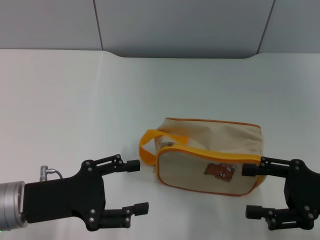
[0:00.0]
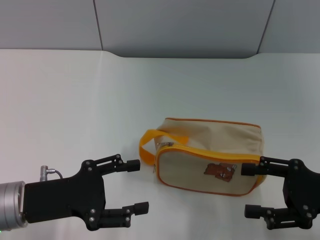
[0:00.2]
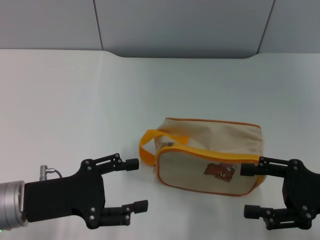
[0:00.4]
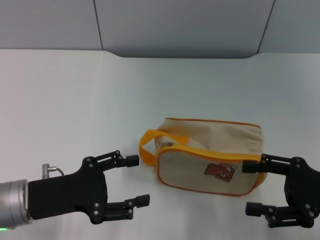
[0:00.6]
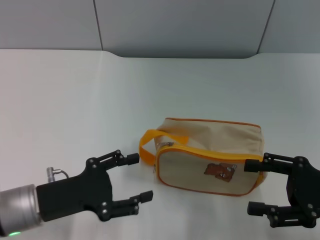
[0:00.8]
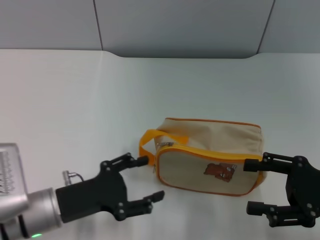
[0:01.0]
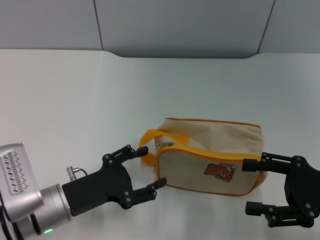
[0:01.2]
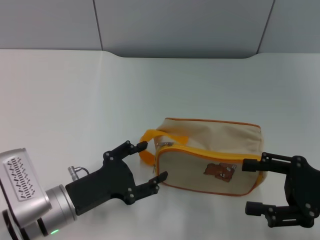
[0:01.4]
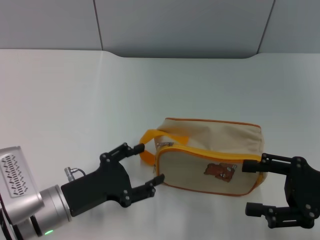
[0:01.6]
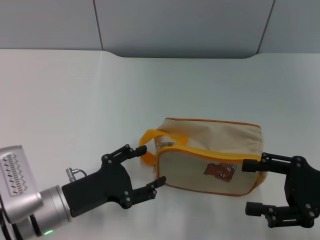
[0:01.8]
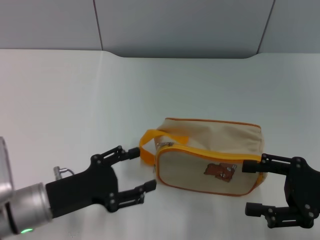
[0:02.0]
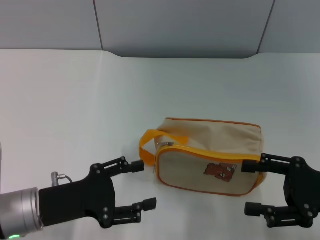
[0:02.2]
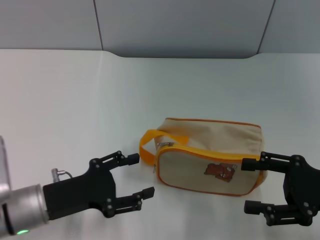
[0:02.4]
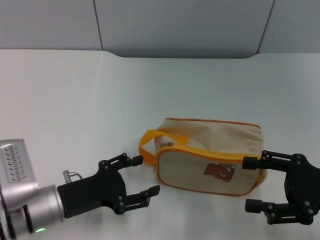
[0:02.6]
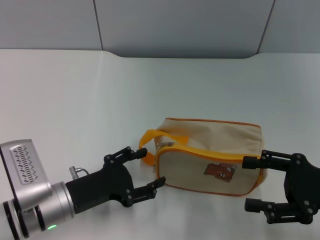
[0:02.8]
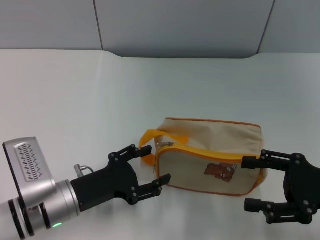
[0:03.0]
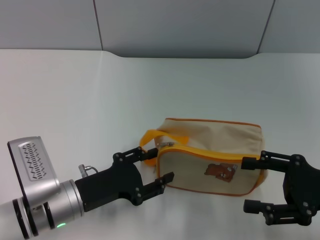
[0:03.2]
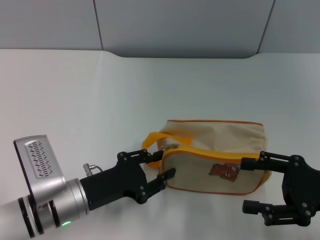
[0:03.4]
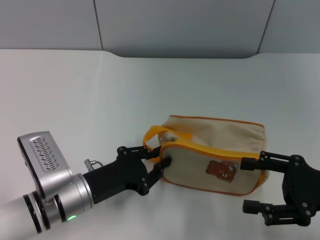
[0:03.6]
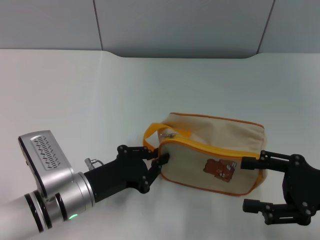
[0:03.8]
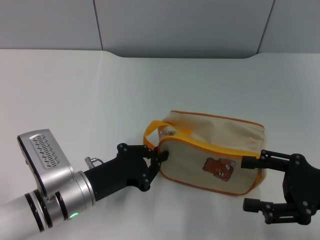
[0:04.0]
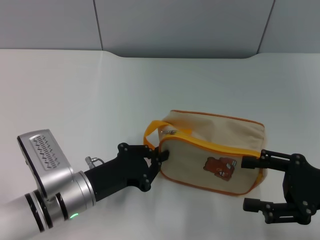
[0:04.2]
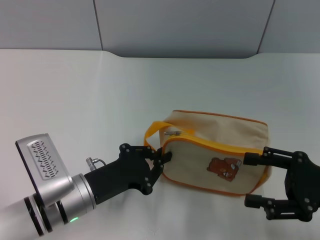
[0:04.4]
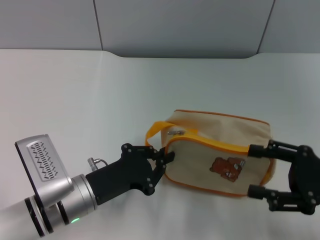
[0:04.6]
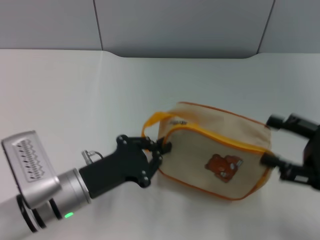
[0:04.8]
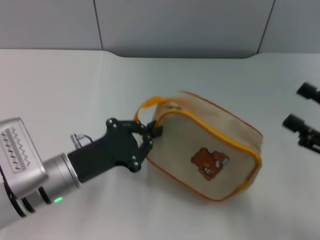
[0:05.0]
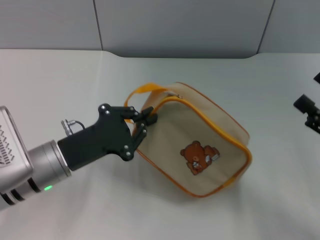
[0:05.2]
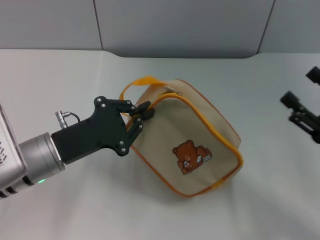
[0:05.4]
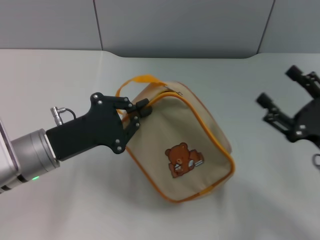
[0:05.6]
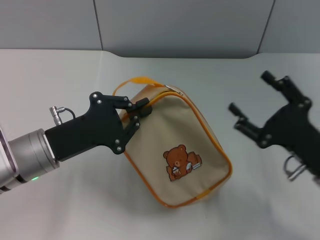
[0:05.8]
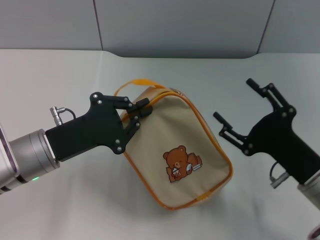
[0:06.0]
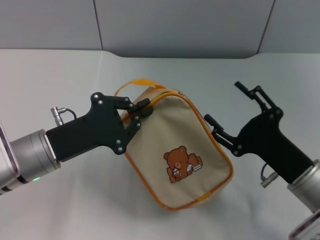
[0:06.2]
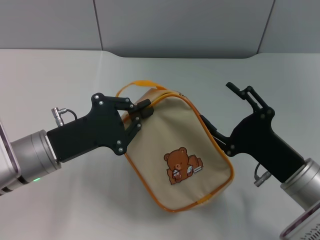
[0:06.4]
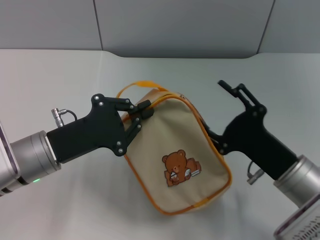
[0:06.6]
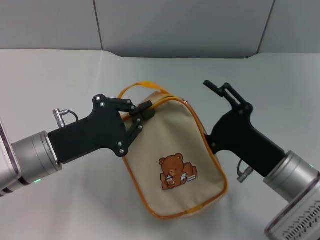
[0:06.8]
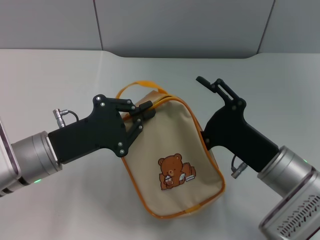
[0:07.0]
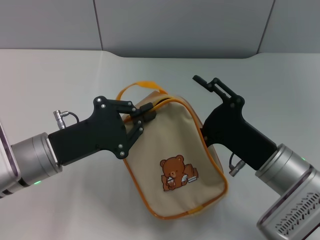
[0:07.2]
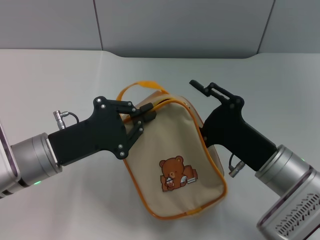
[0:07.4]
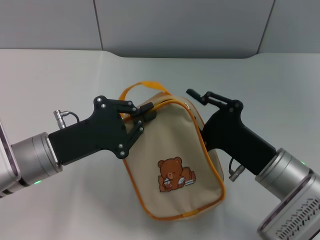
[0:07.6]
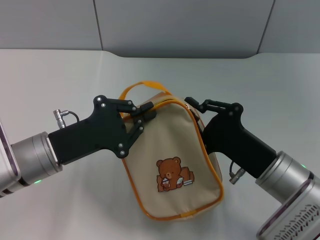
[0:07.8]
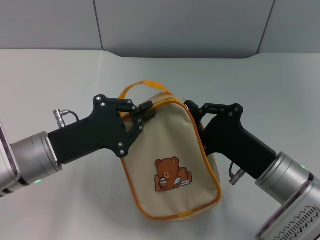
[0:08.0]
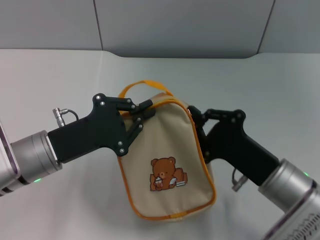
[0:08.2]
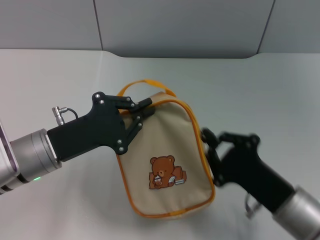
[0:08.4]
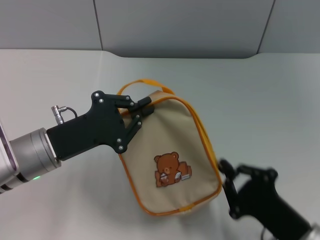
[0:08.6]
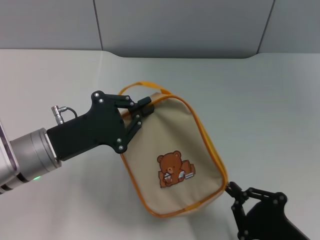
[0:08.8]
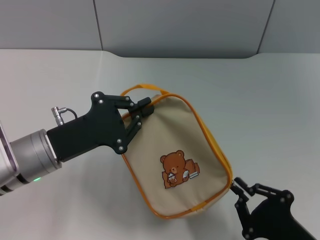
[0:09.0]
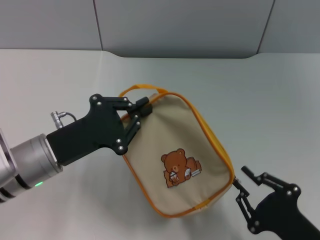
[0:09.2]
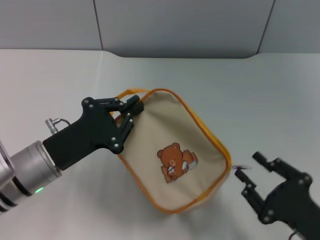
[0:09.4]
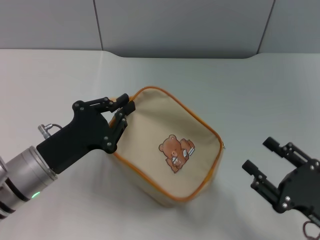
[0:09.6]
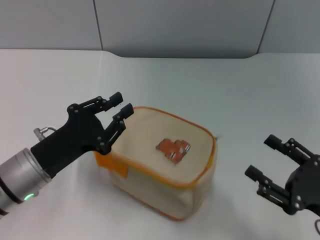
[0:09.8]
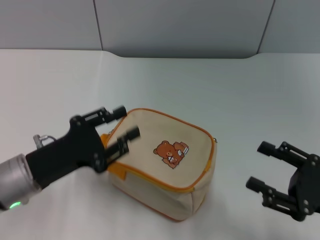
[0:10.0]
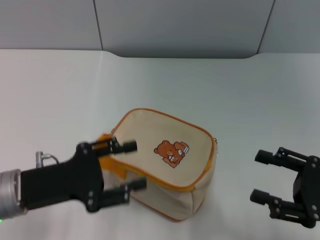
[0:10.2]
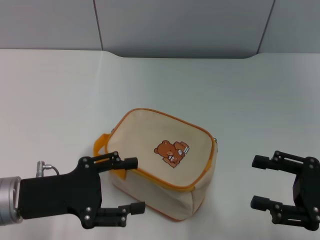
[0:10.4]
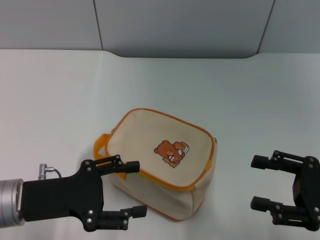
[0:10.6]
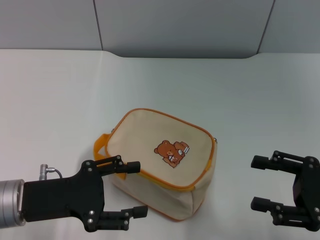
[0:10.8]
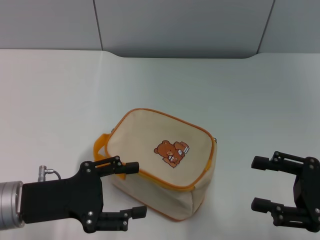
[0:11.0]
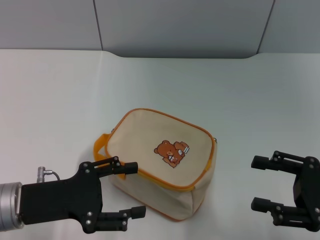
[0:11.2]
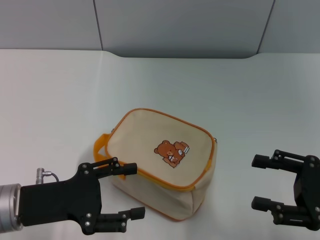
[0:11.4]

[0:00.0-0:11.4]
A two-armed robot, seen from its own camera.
Step, 0:00.0 to 0:05.0: Pick up the bag with left gripper.
Step, 0:05.2 to 0:09.4: Unzip the zipper of bag with right gripper.
0:00.0 to 0:01.4: The left gripper is displaced downward by roughly 5 cm.
0:01.4 to 0:02.8: The grippers move only a little.
0:02.8 to 0:04.2: The left gripper closes up.
0:04.2 to 0:05.6: The left gripper is displaced upward by roughly 5 cm.
0:05.6 to 0:07.2: The right gripper shifts about 10 cm to the left.
0:07.2 to 0:08.6: The right gripper heads backward, covering about 10 cm, and closes up.
0:08.6 to 0:10.0: The right gripper travels to the right and upward by some 10 cm, and opens.
0:10.0 to 0:11.4: The left gripper opens up.

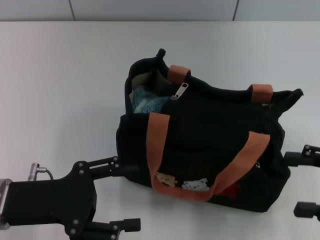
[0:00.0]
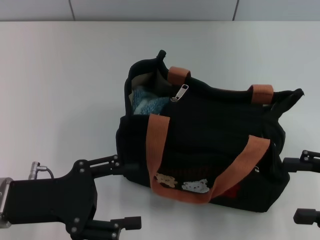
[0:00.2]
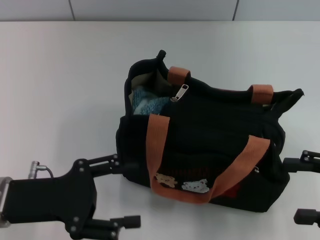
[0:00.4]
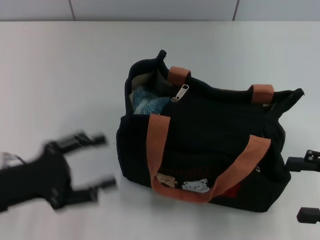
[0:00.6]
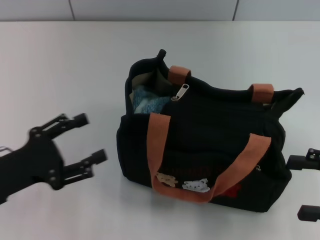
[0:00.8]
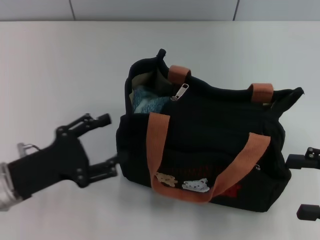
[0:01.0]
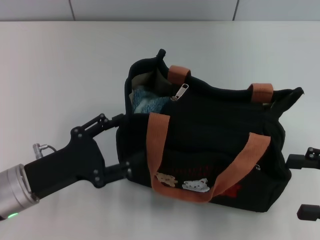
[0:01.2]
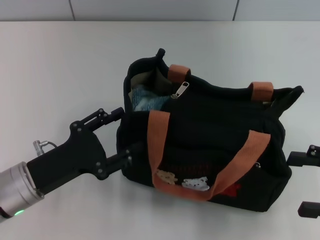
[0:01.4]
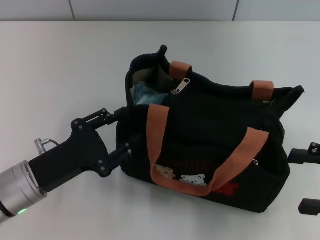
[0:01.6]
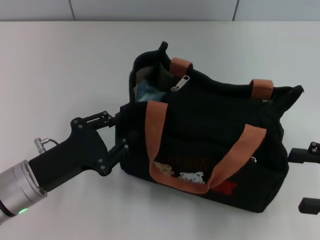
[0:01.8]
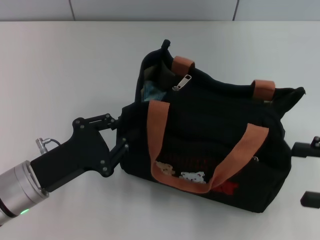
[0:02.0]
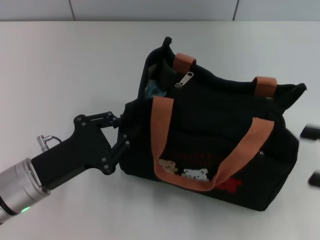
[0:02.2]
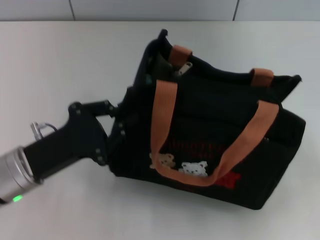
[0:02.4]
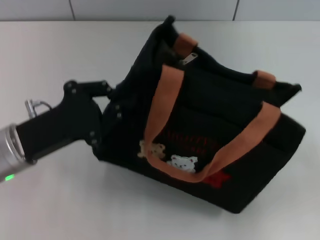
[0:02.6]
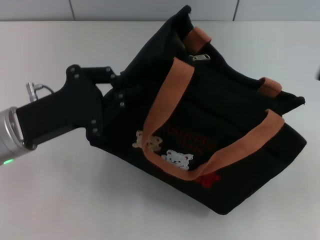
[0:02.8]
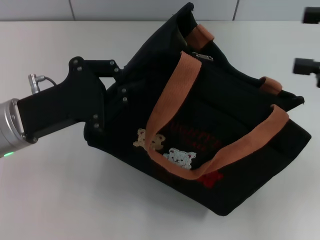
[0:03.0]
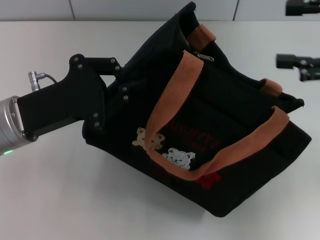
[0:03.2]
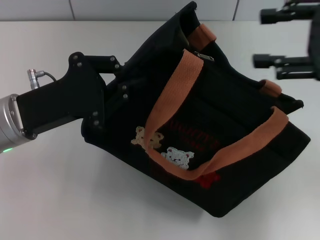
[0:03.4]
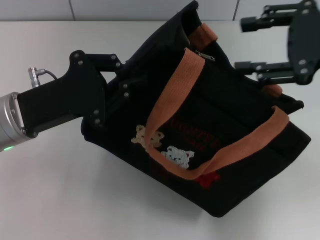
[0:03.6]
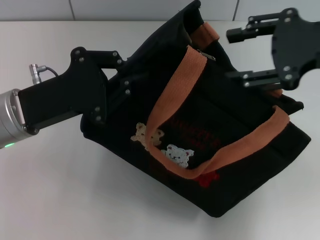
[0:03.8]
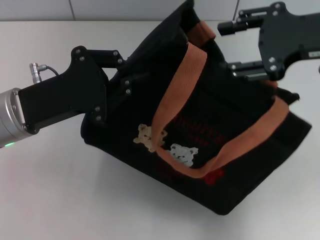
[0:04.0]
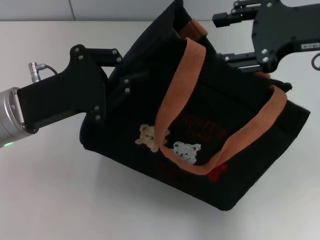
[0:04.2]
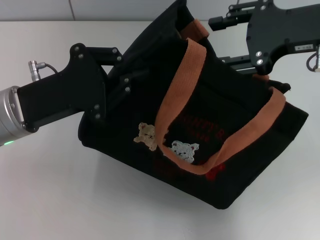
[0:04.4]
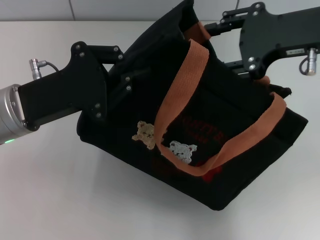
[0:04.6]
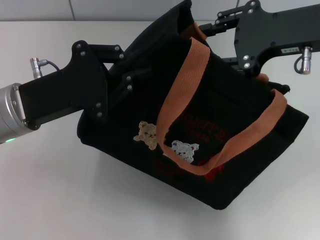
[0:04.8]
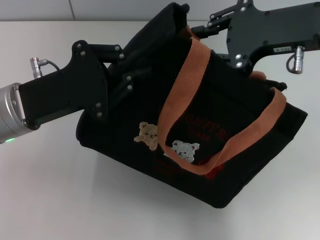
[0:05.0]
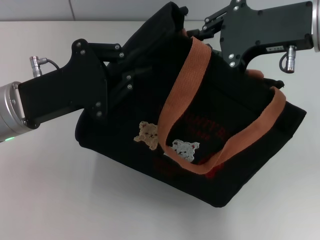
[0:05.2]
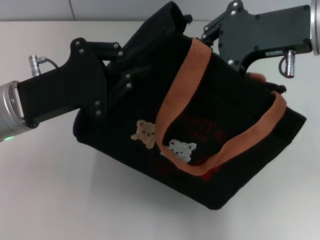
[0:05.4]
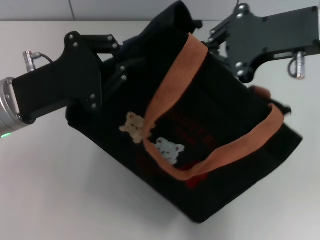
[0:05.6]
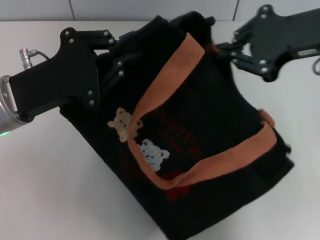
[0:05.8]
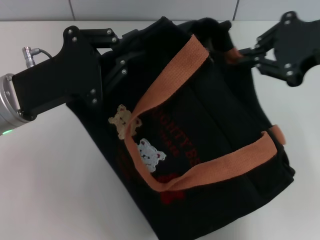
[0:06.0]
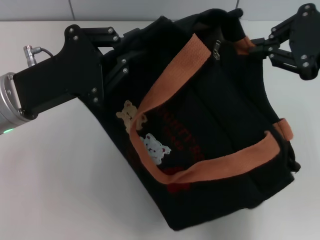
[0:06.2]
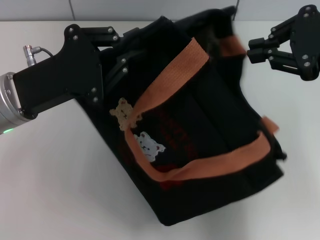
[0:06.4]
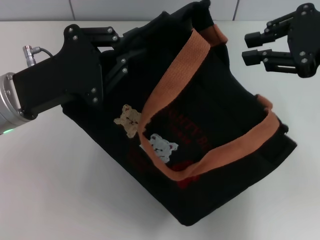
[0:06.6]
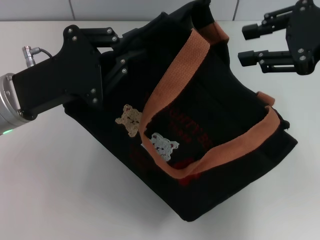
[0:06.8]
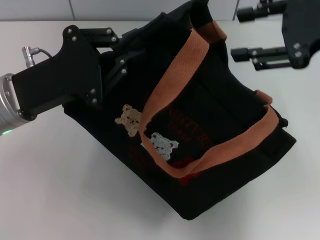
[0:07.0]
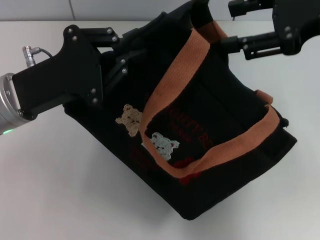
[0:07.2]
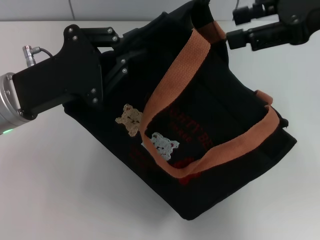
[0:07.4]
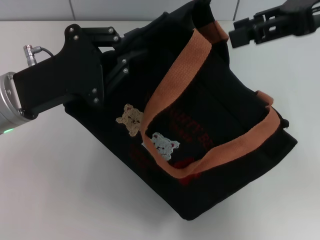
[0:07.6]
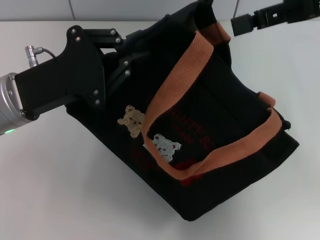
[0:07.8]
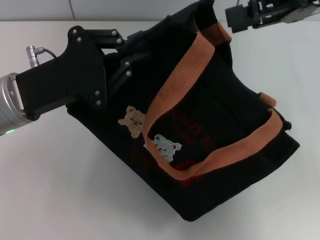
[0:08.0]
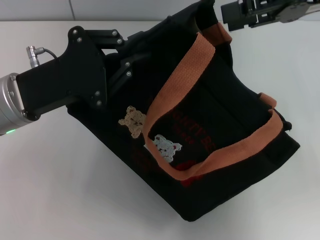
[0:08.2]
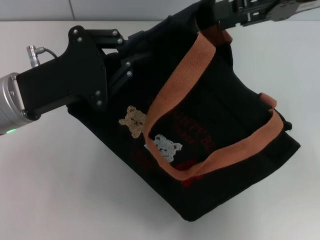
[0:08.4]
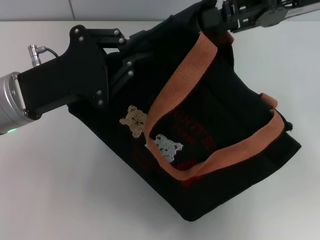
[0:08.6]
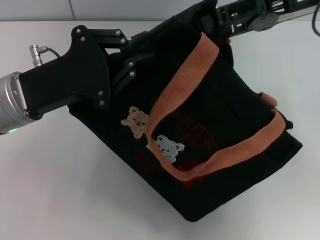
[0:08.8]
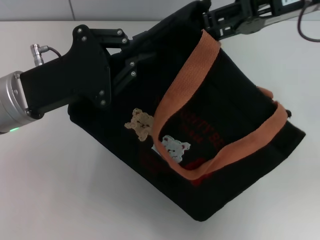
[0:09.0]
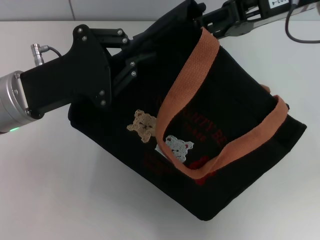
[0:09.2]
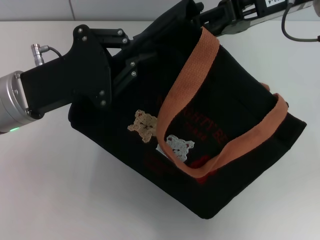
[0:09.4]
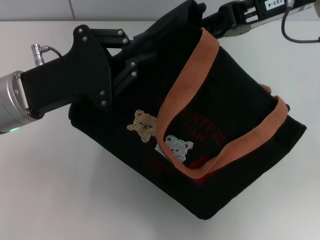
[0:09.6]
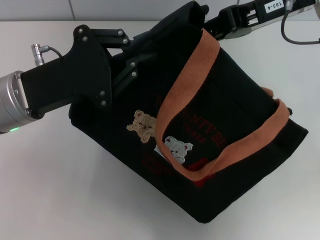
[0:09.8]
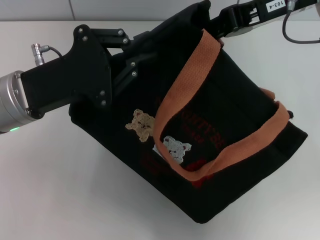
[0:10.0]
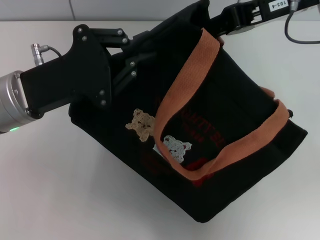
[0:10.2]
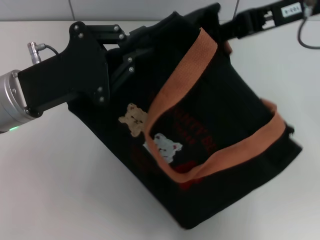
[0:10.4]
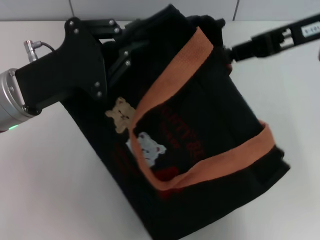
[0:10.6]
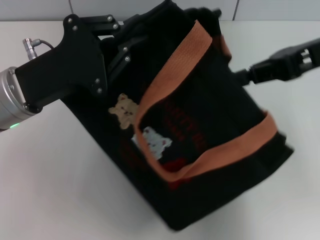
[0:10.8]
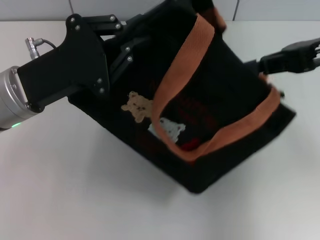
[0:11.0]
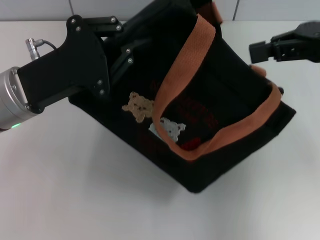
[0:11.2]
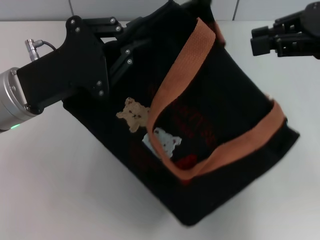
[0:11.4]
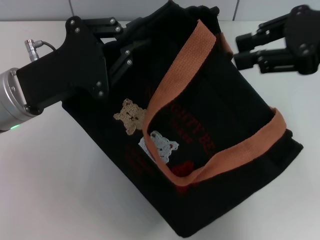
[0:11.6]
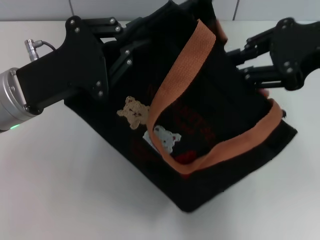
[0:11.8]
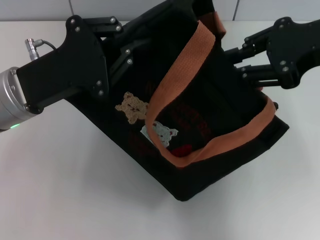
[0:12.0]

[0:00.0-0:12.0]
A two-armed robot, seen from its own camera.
0:00.0 to 0:01.6: The left gripper shifts by about 5 cm.
0:01.6 to 0:03.0: The left gripper shifts roughly 10 cm upward and forward, and closes up. The right gripper is displaced upward and forward by some 15 cm.
0:03.0 to 0:04.4: The right gripper goes approximately 10 cm to the left and forward.
0:04.4 to 0:06.0: The right gripper closes up.
0:06.0 to 0:07.6: The right gripper opens up.
0:07.6 to 0:09.0: The right gripper shifts by approximately 5 cm.
0:09.0 to 0:10.4: The right gripper closes.
0:10.4 to 0:12.0: The right gripper goes about 5 cm backward, and opens its fingers.
